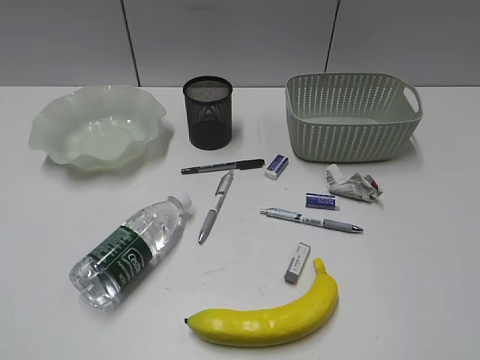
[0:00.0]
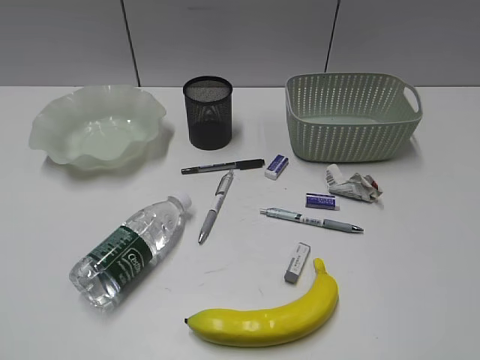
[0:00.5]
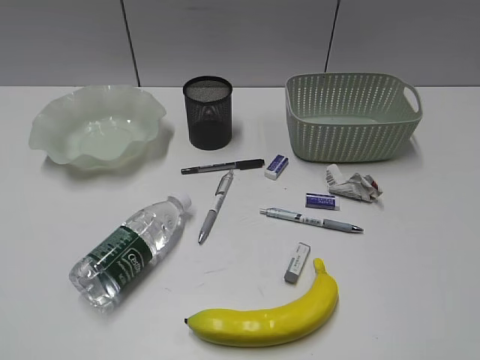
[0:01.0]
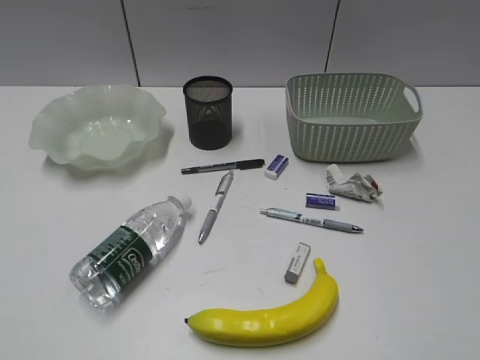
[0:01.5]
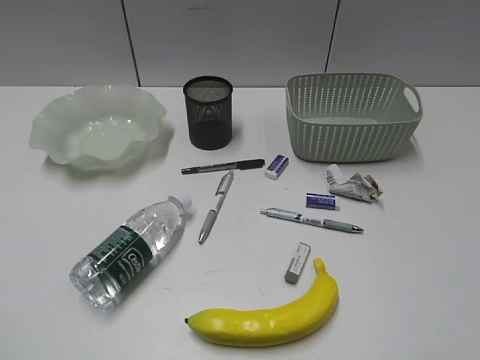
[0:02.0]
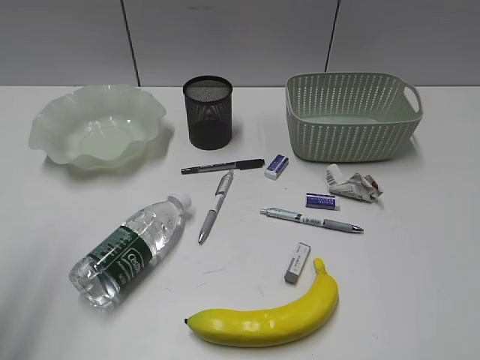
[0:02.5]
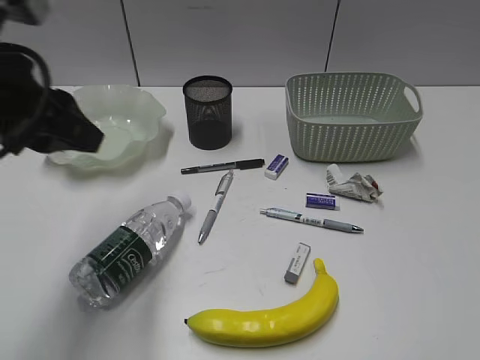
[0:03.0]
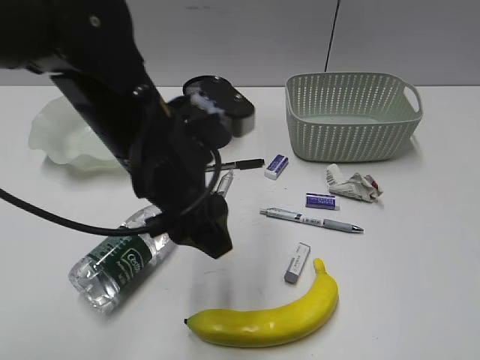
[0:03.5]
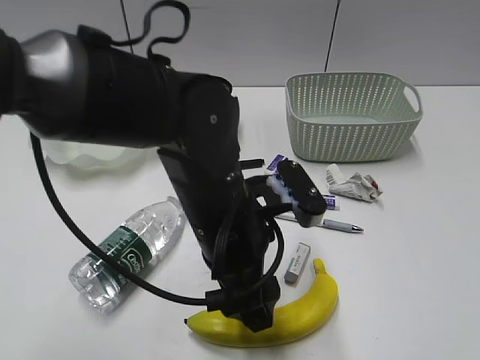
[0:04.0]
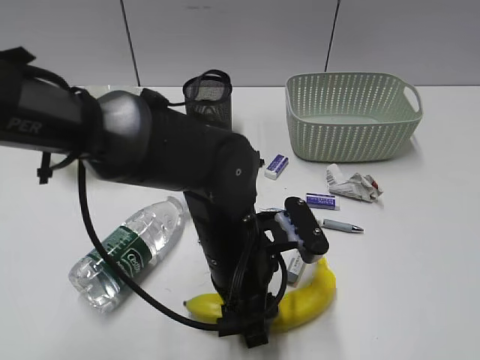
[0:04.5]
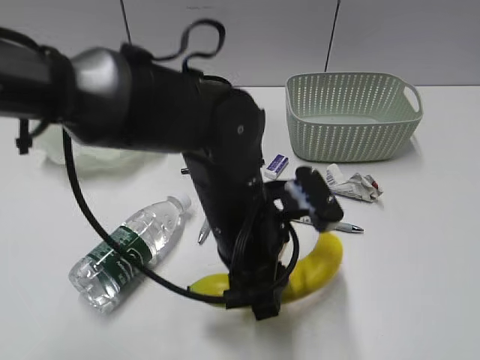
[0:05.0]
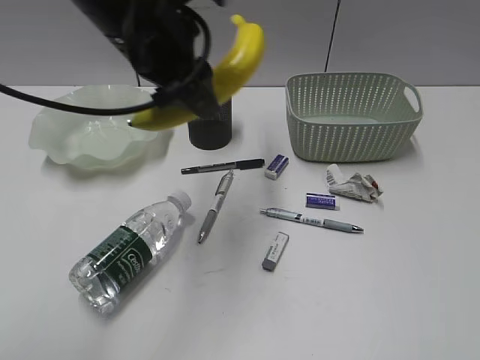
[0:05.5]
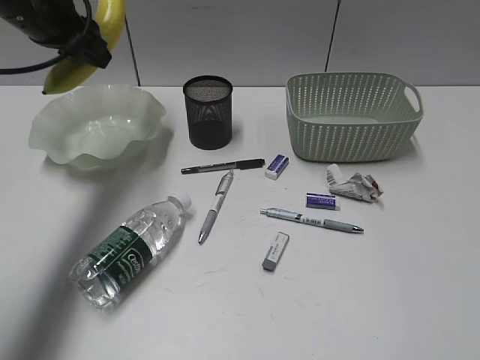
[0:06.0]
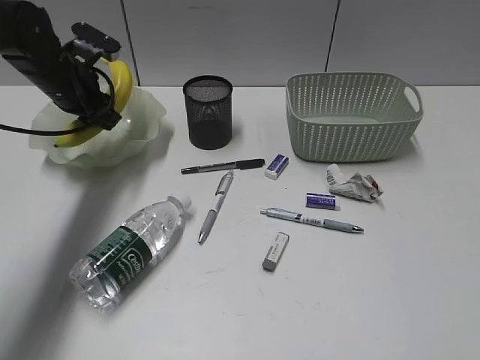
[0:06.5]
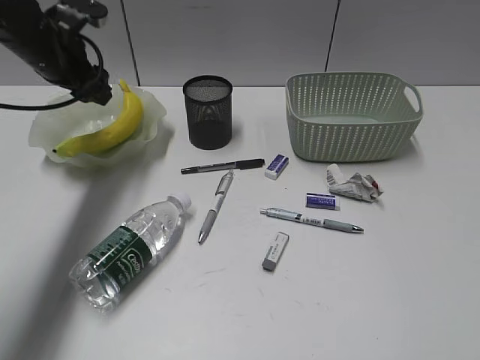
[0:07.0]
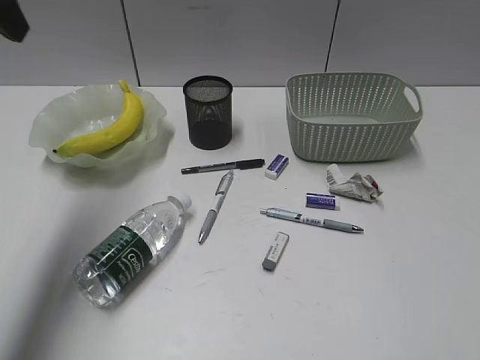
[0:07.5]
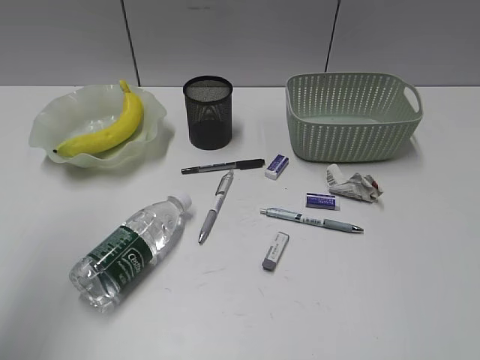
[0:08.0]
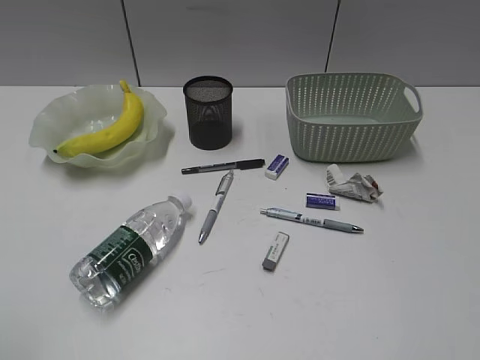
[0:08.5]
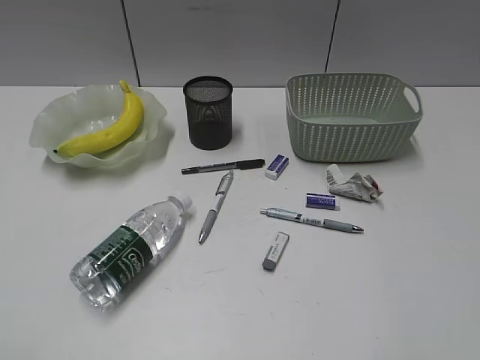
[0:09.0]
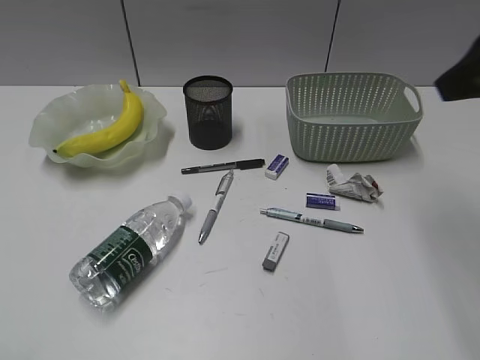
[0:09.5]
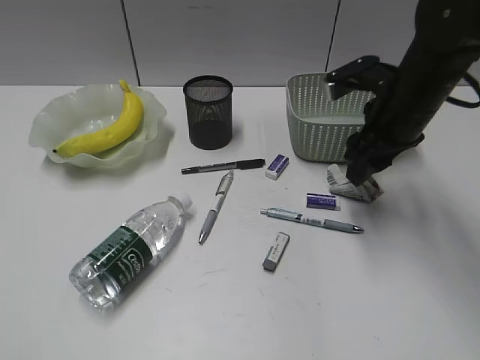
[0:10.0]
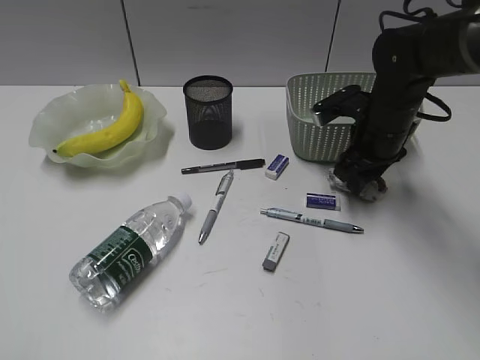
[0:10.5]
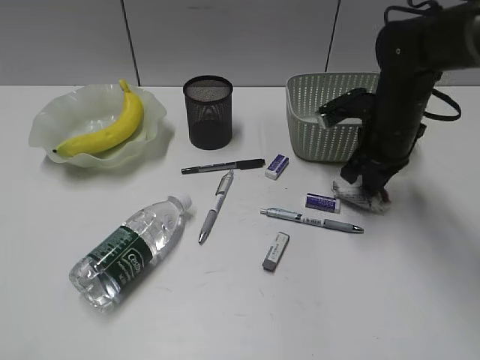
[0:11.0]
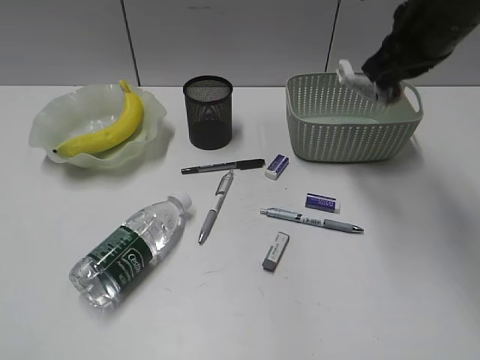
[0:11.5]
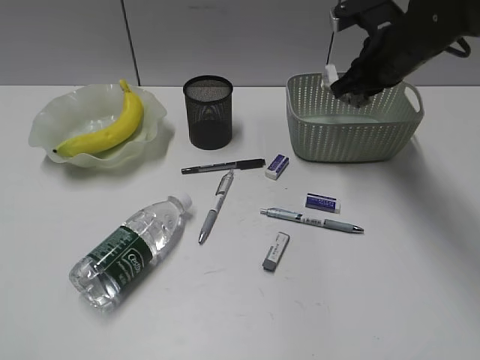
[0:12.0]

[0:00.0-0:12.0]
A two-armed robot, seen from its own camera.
Step, 0:02.0 to 0:04.5: Grasp the banana with left gripper.
Step, 0:05.0 to 0:06.5: Place the banana in the plate with left gripper.
Step, 0:07.0 to 0:10.5: Grasp the waste paper with right gripper.
0:02.0 to 0:04.0: The left gripper shifts approximately 40 cm to the right, forward and downward, and opens up.
0:04.0 to 0:06.0: The left gripper is displaced to the left, forward and upward by roughly 30 cm, and closes.
0:06.0 to 0:08.0: The left gripper moves backward and upward, approximately 25 cm.
0:08.0 to 0:10.0: The right gripper travels forward by about 35 cm, and opens its fingers. Meanwhile the left gripper is displaced backward and downward by roughly 20 cm.
0:10.0 to 0:12.0: The right gripper swings up and down, about 15 cm each way, with 2 reversals, and closes.

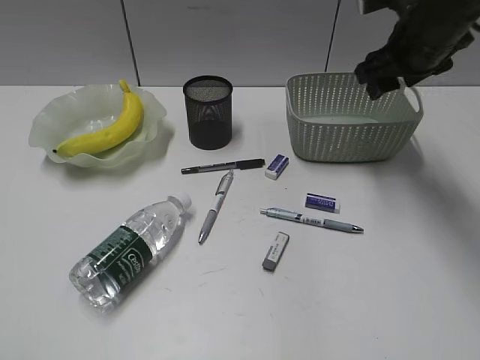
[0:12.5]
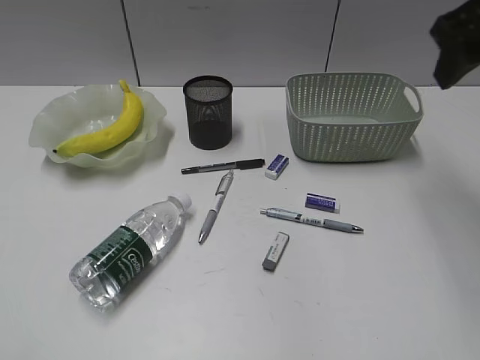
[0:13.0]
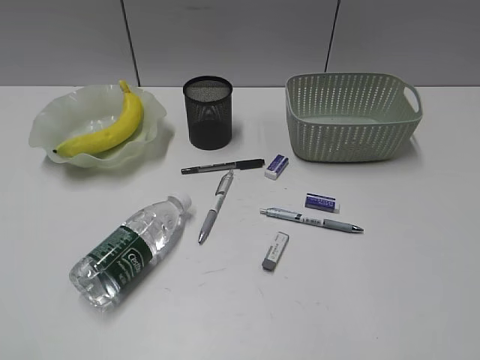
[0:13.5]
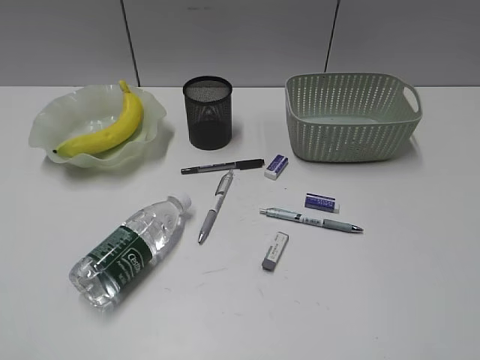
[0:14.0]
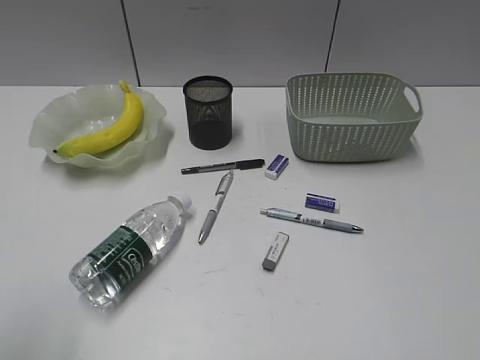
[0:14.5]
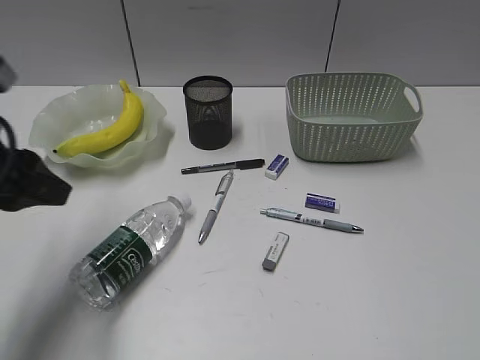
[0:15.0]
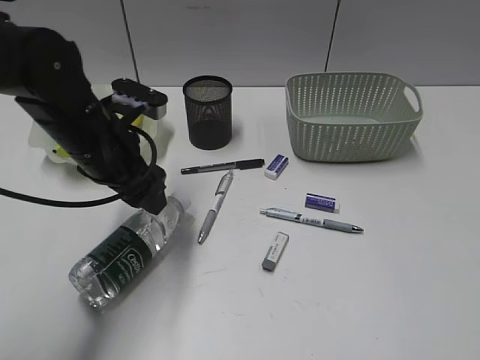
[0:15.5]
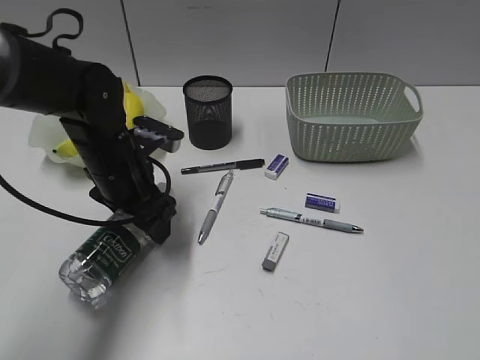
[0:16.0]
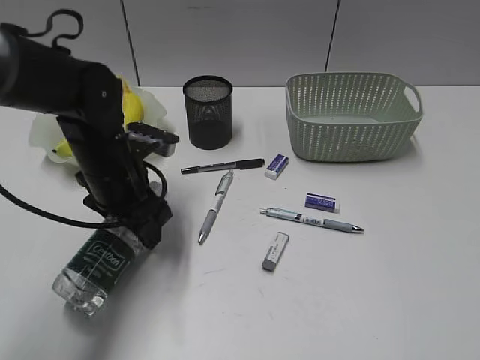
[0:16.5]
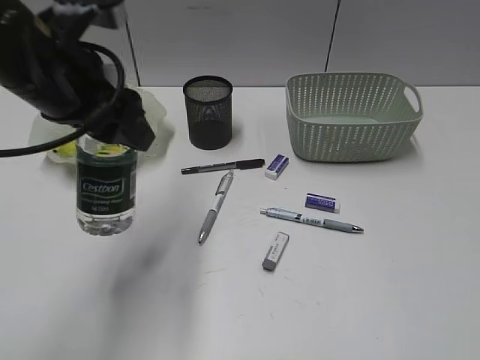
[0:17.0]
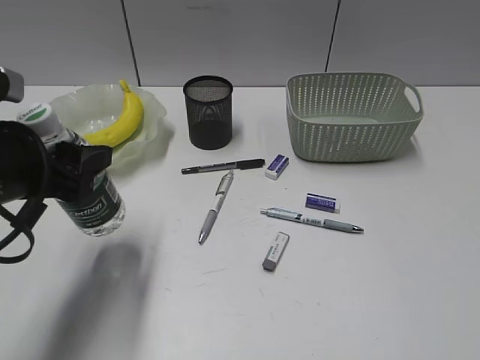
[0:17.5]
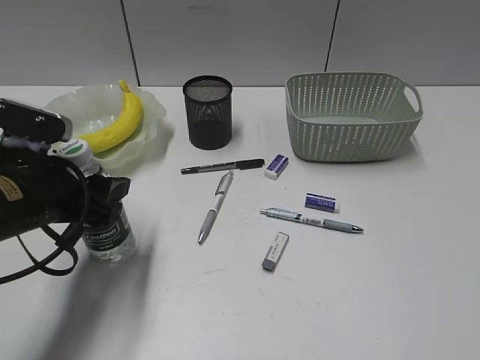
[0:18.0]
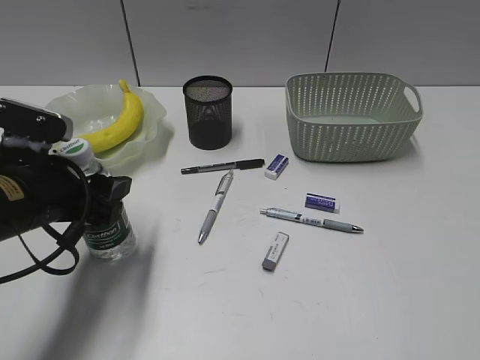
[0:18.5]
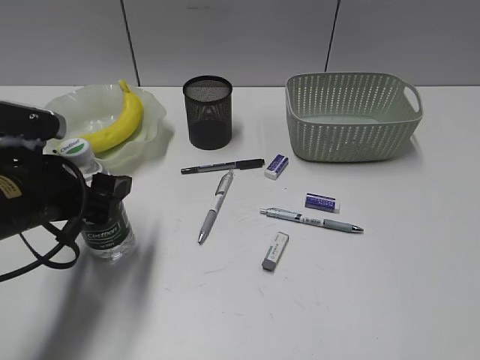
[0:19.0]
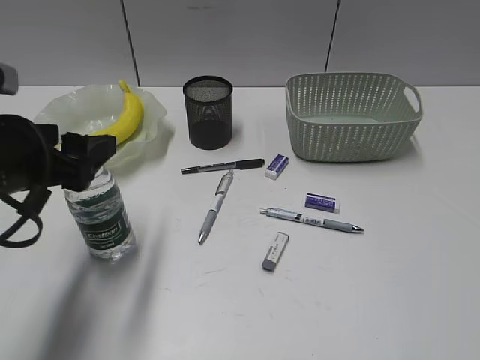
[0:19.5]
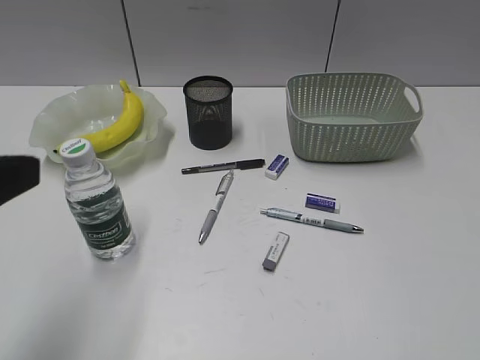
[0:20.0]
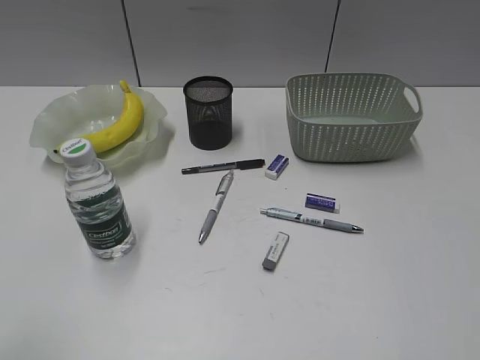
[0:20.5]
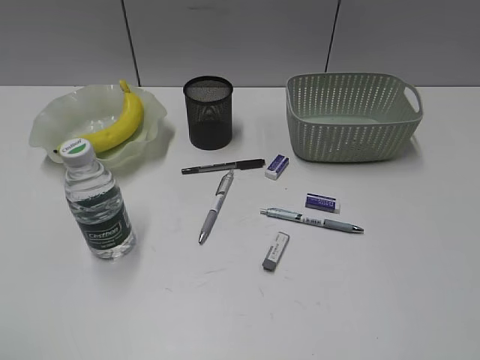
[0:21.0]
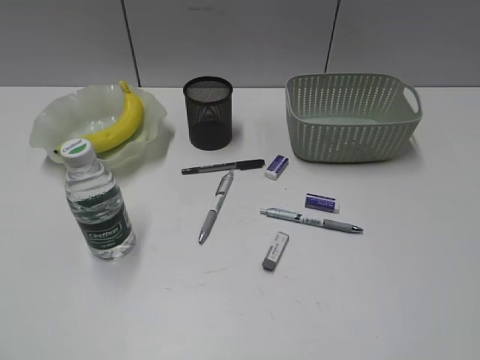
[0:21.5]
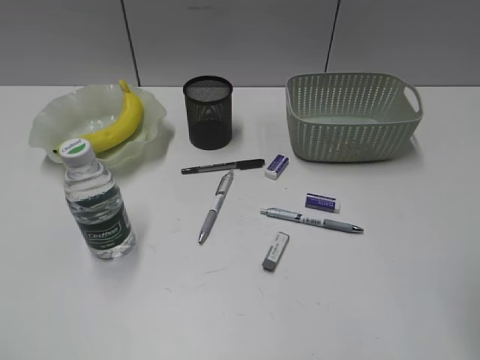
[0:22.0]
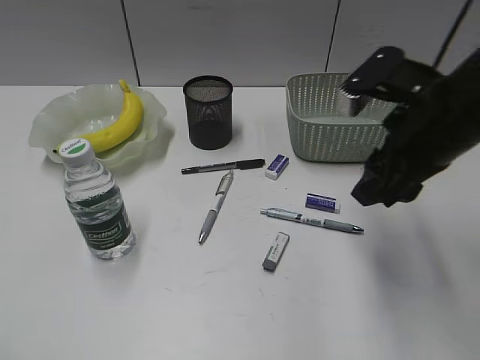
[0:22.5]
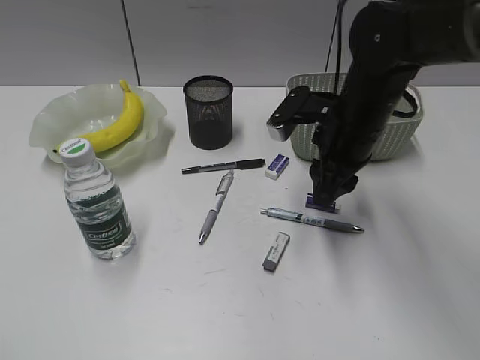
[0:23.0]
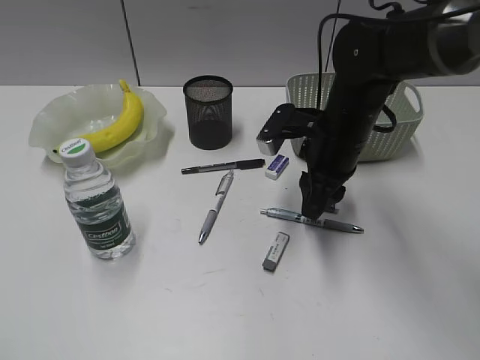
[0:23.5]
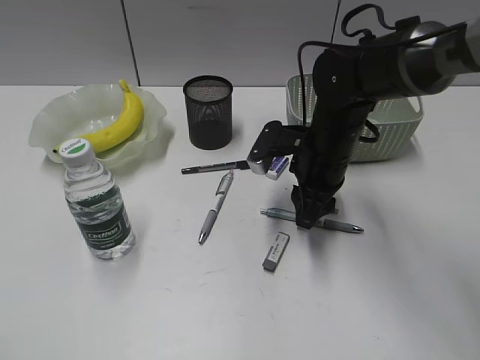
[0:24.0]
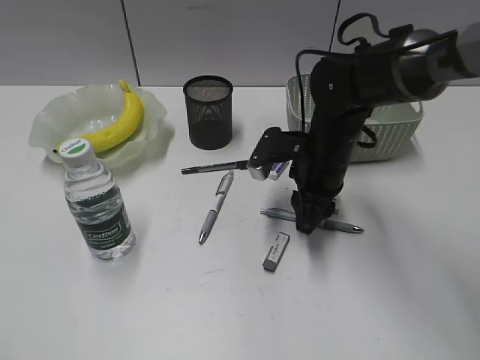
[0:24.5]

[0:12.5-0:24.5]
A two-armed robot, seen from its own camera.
Step, 0:12.5 to 0:16.0: Grasp the bottle with left gripper.
Step, 0:16.5 to 0:19.5: Stand the bottle with left gripper.
0:12.5 to 0:14.5: The right gripper heads backward, covering approximately 40 cm.
0:14.5 to 0:16.5: The left gripper is displaced forward, downward and to the right by some 35 cm.
0:16.5 to 0:18.5: The left gripper is displaced backward and to the left by about 10 cm, and moves approximately 15 cm upward and comes back.
0:18.5 to 0:20.5: The left gripper travels backward, upward and to the left by about 25 cm.
0:20.5 to 0:22.5: The right gripper heads forward and to the left, covering some 30 cm.
0:22.5 to 0:24.5: The right gripper heads downward, forward and to the left, covering roughly 15 cm.

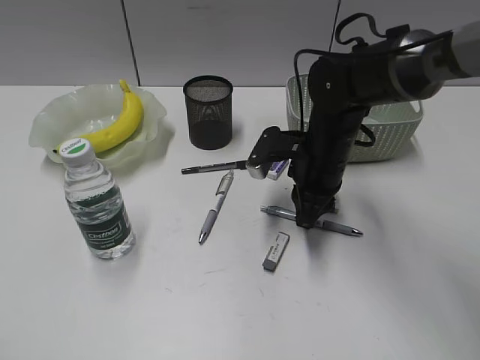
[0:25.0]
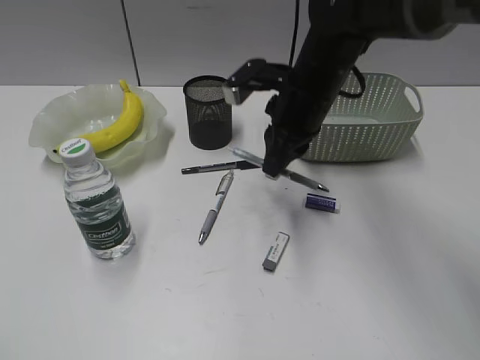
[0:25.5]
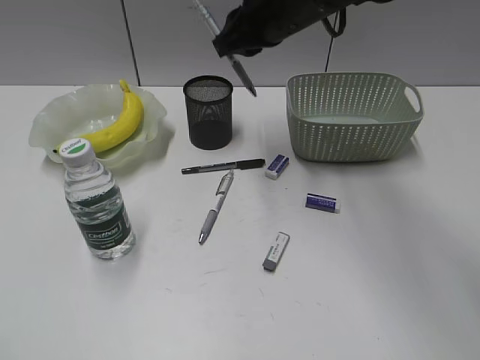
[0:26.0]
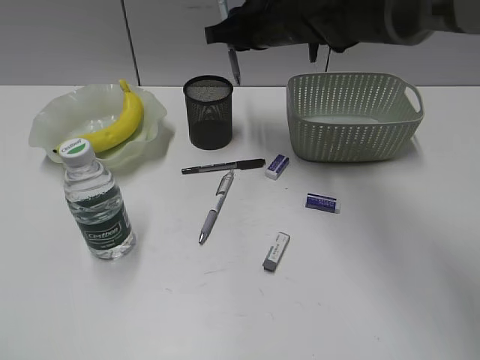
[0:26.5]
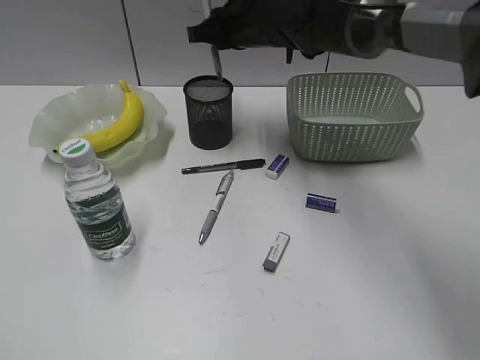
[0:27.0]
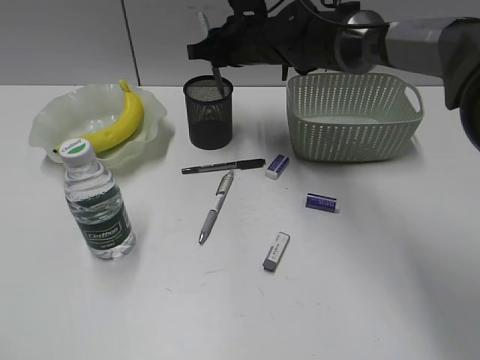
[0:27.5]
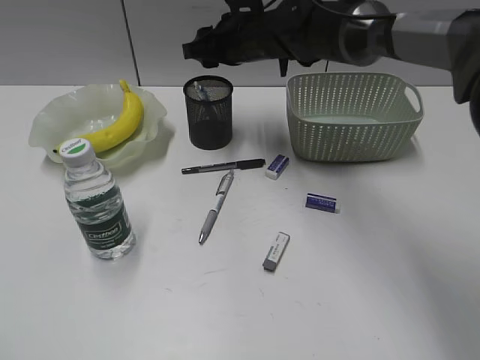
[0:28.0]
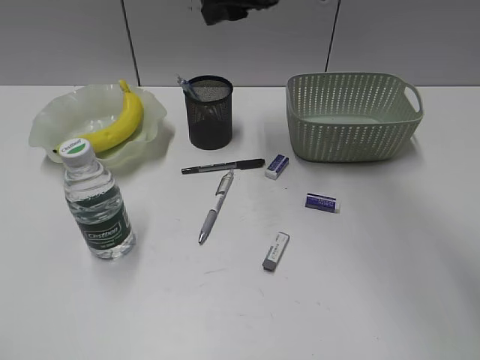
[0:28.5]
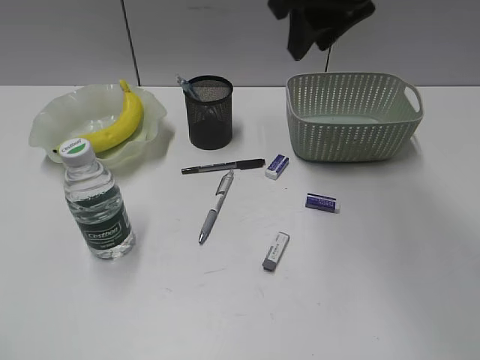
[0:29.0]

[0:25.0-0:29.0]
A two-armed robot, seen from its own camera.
Step, 0:25.5 to 0:27.5: Place the blue pen in pen holder with right gripper.
0:25.0 to 0:27.0: The right gripper goes about 20 cm forward, upward and to the left.
0:27.0 to 0:29.0: The right gripper moves upward, backward and to the right, some 20 cm, and opens up.
